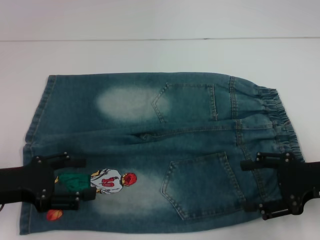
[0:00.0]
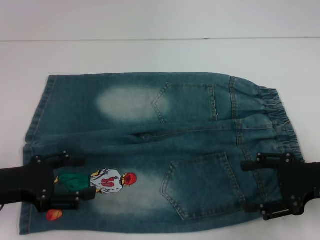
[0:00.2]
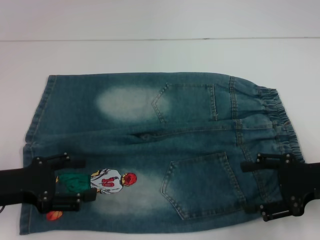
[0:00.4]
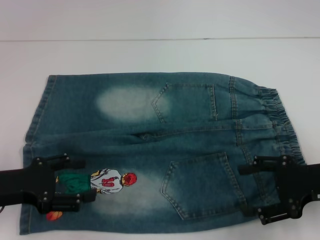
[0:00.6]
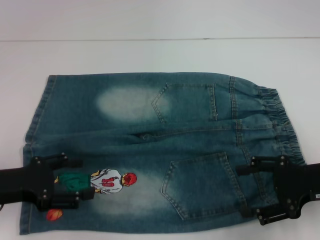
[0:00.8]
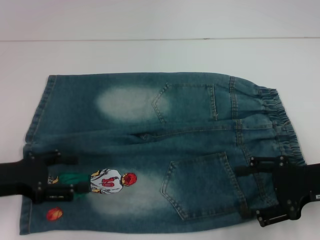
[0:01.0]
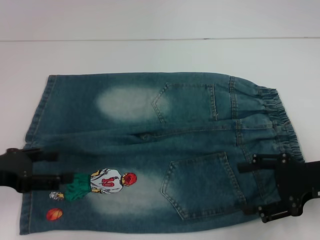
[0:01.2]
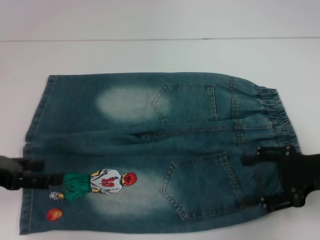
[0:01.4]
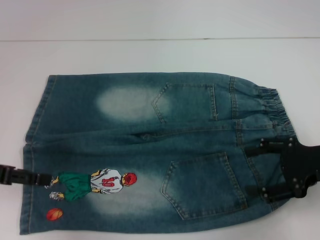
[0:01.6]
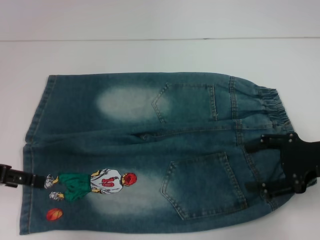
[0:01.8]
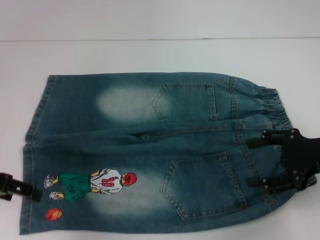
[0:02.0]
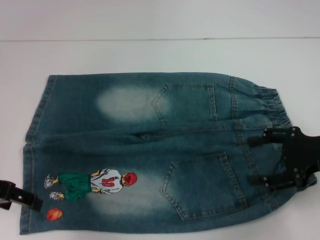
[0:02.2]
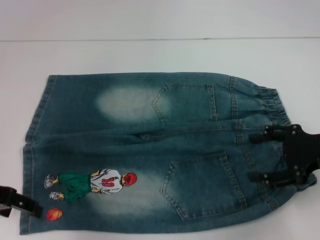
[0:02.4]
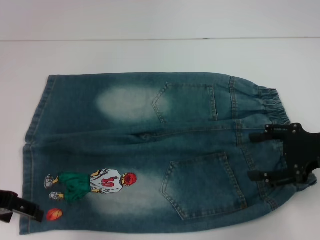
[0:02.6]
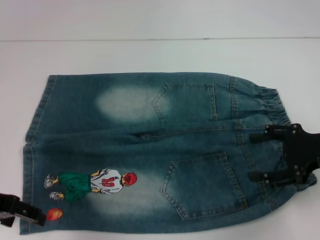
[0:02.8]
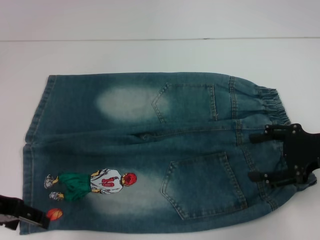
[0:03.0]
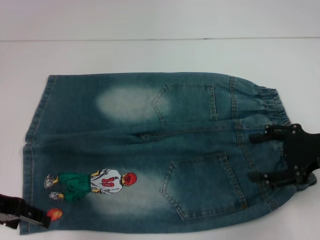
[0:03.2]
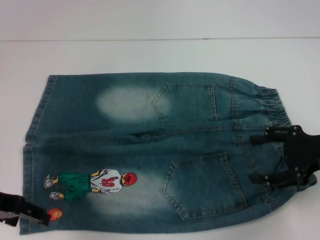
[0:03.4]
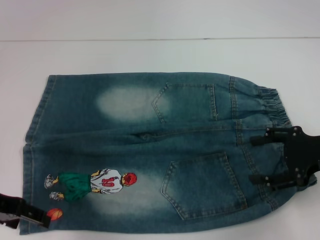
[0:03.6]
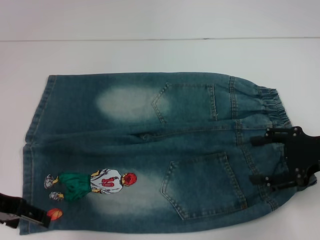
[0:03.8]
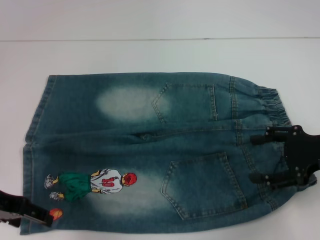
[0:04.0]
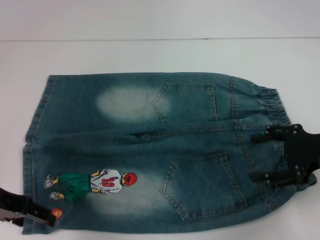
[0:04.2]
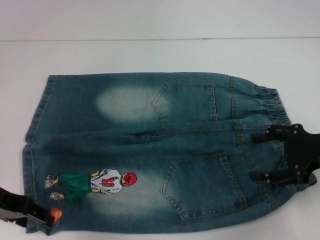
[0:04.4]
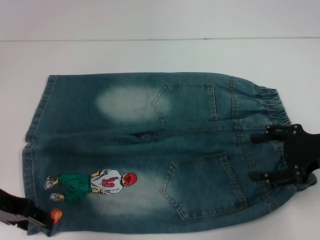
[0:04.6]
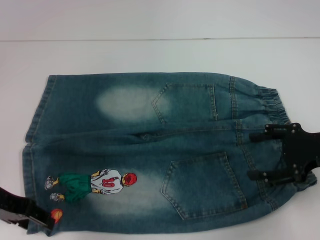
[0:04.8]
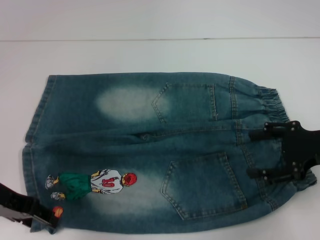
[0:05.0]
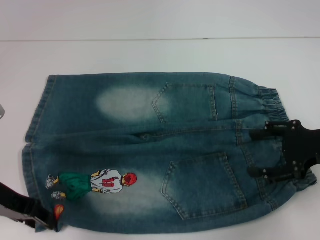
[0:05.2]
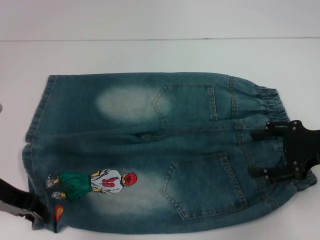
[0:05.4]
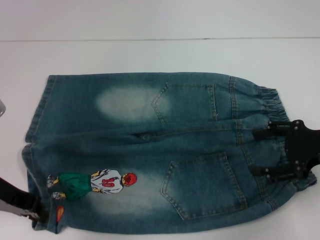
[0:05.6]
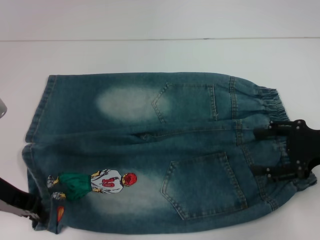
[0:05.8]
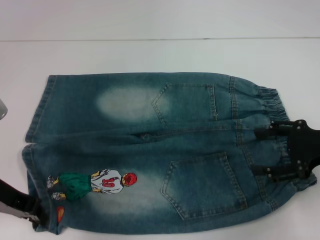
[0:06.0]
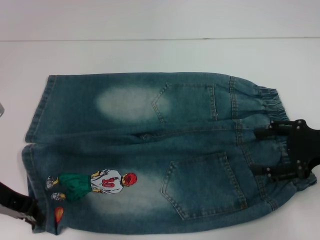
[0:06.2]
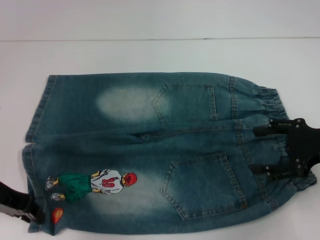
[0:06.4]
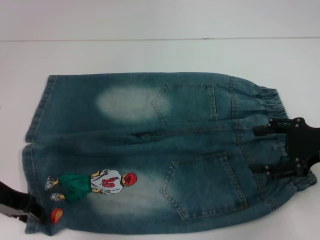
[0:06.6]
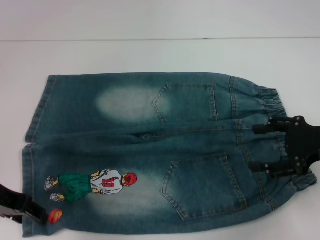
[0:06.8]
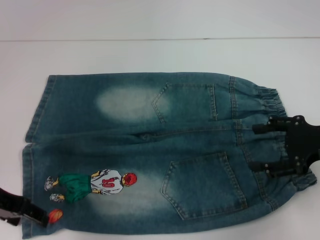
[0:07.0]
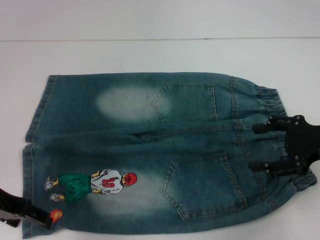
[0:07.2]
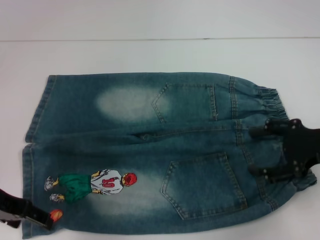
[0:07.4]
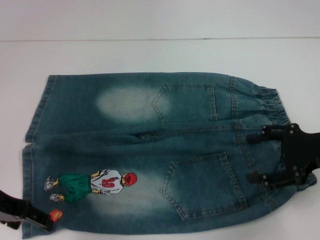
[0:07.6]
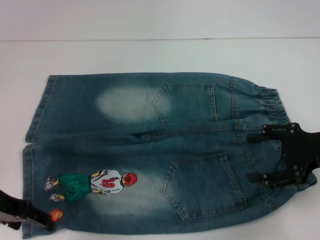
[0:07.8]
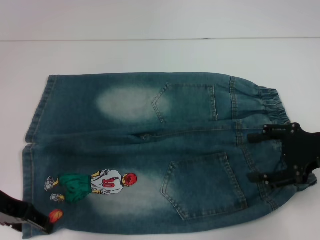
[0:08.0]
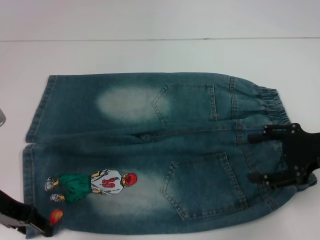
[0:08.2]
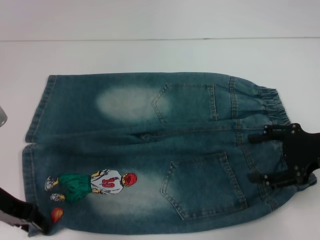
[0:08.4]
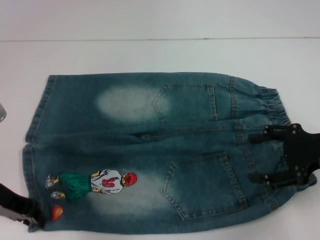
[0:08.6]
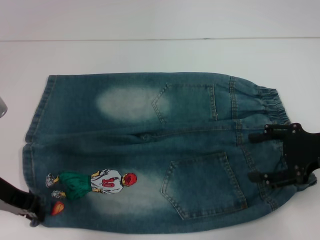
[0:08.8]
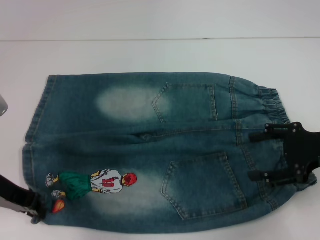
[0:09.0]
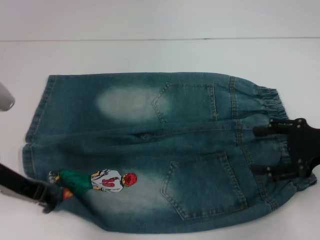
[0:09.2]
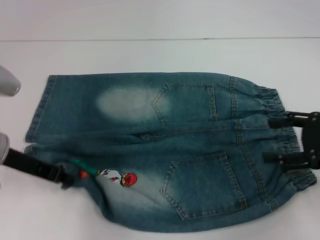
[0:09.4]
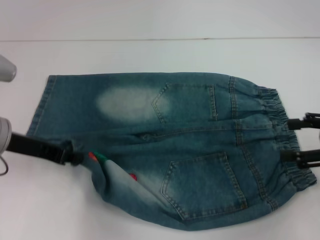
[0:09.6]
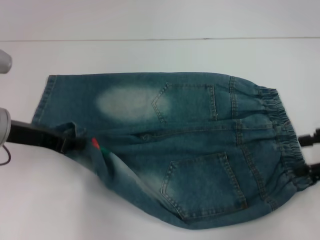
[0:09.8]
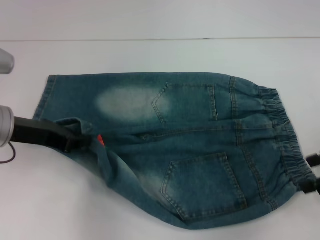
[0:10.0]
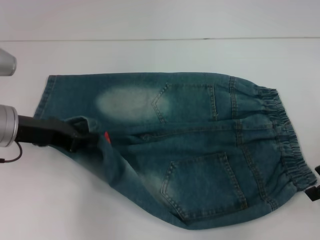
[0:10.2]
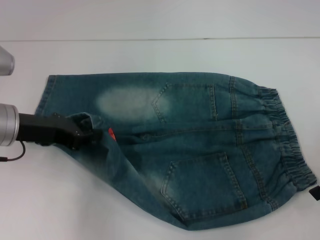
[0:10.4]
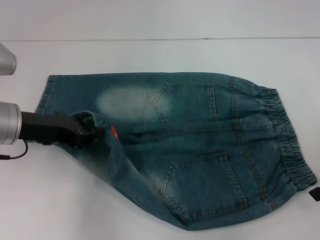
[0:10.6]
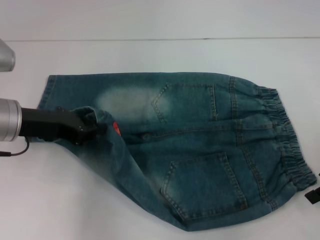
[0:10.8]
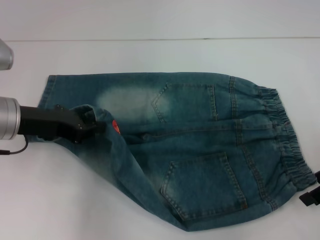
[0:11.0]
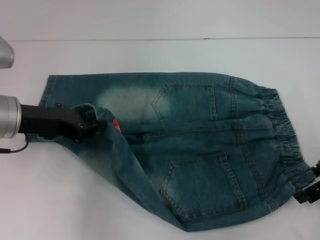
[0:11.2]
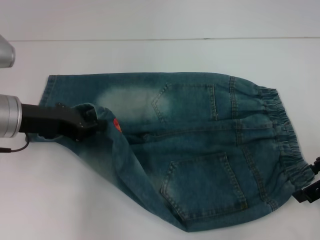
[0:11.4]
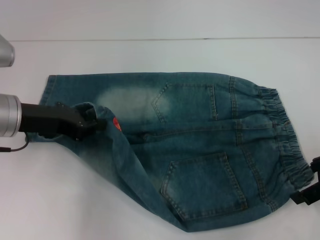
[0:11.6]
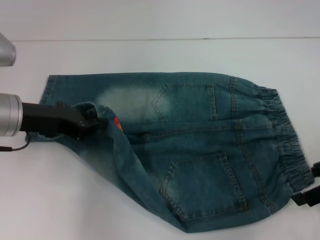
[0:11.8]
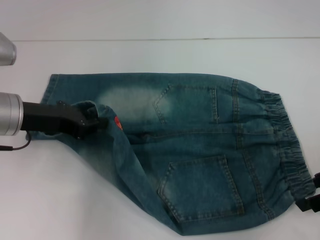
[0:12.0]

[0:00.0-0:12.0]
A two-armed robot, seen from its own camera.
Step, 0:00.0 to 0:08.6: Grab the lower left pant leg with your left hand.
0:00.0 to 0:01.6: The left gripper goes about 5 cm upward.
0:03.0 to 0:04.4: Both grippers stay about where they are.
0:04.4 to 0:06.0: The left gripper closes.
0:06.0 to 0:07.6: The left gripper opens up.
0:07.6 to 0:09.0: The left gripper closes its fingers.
0:09.0 to 0:10.4: The right gripper ends up roughly 5 cm from where it was.
0:10.4 to 0:12.0: There are only small adjustments of the grippers.

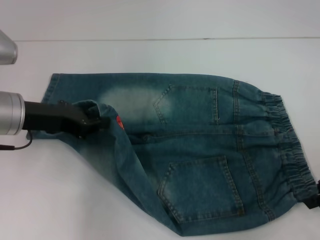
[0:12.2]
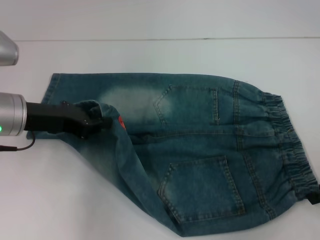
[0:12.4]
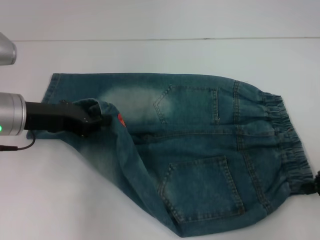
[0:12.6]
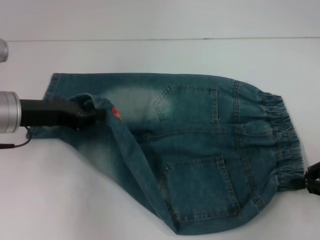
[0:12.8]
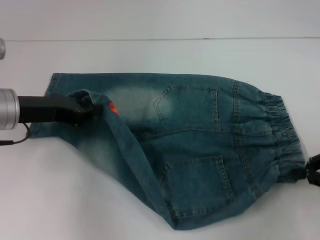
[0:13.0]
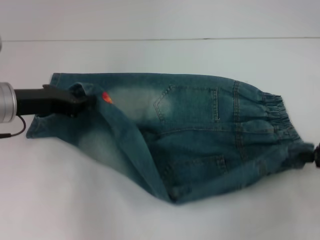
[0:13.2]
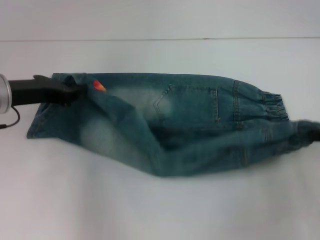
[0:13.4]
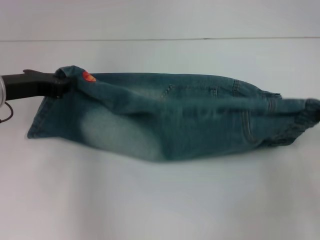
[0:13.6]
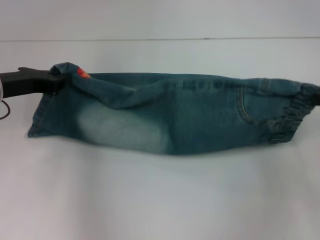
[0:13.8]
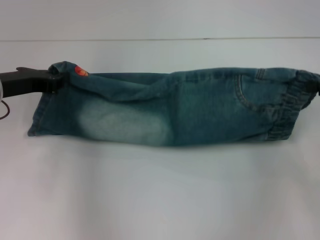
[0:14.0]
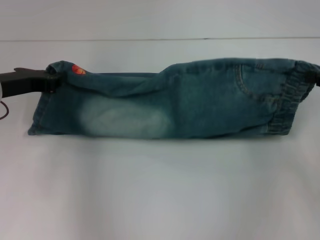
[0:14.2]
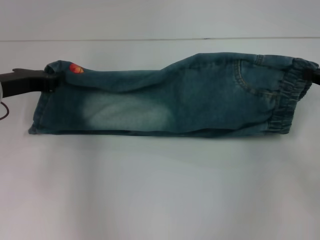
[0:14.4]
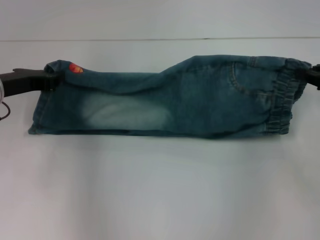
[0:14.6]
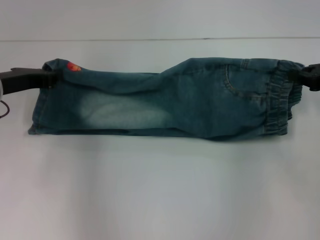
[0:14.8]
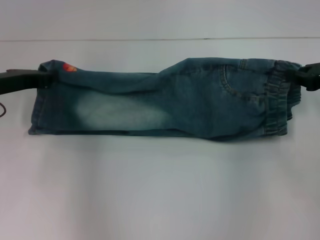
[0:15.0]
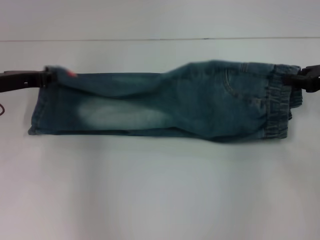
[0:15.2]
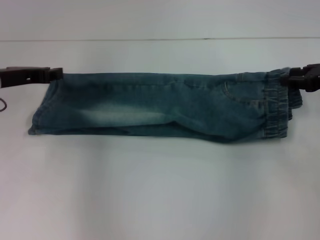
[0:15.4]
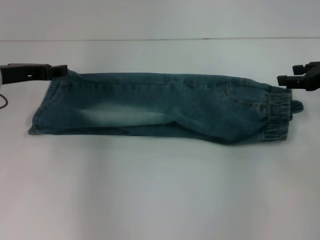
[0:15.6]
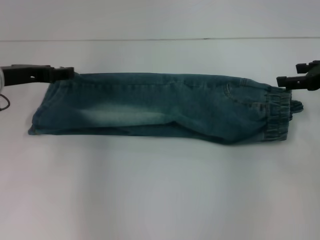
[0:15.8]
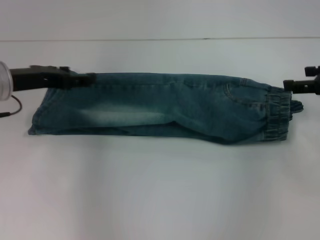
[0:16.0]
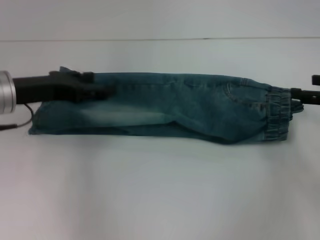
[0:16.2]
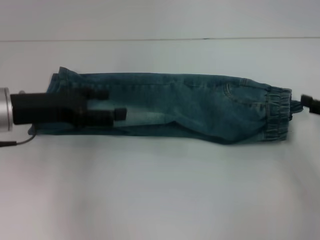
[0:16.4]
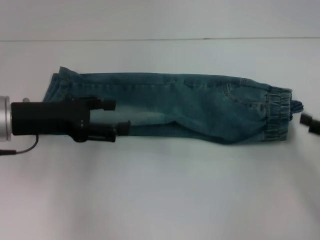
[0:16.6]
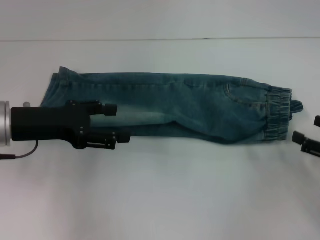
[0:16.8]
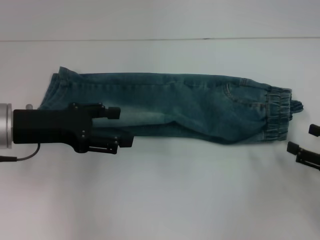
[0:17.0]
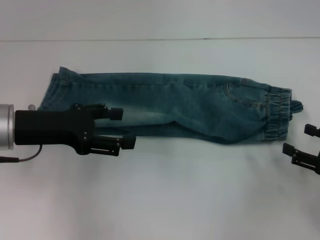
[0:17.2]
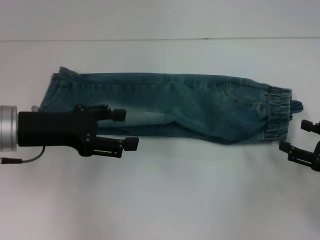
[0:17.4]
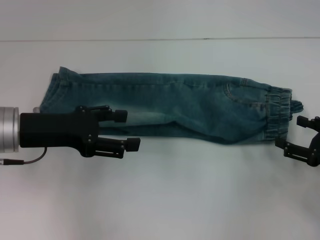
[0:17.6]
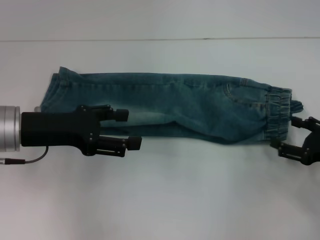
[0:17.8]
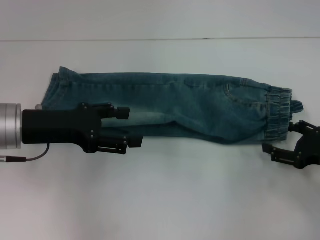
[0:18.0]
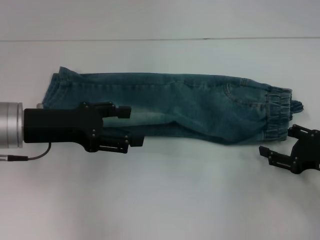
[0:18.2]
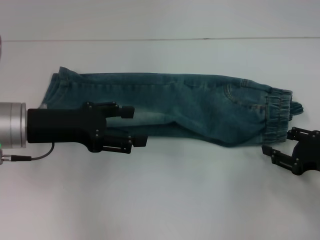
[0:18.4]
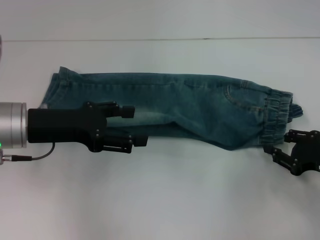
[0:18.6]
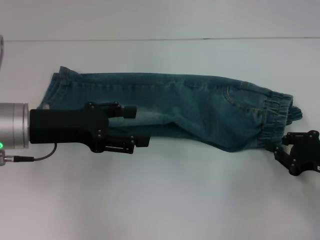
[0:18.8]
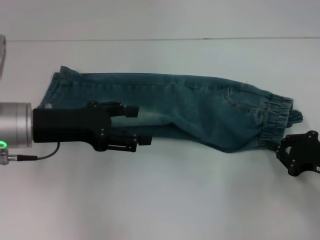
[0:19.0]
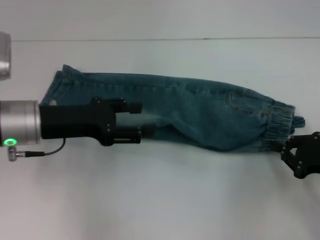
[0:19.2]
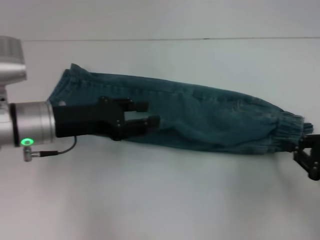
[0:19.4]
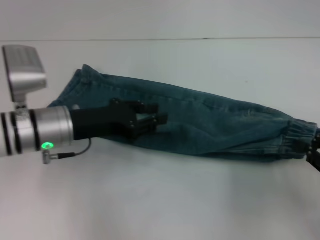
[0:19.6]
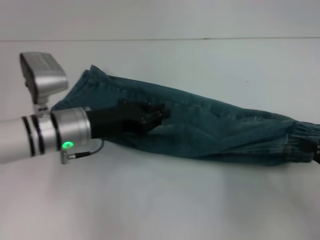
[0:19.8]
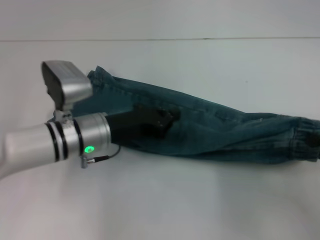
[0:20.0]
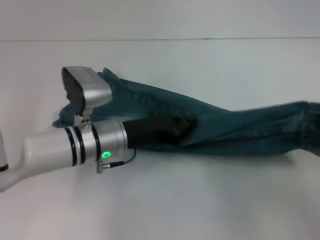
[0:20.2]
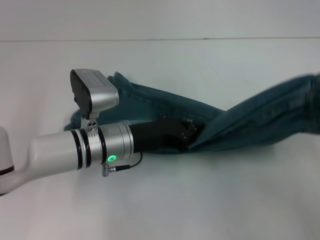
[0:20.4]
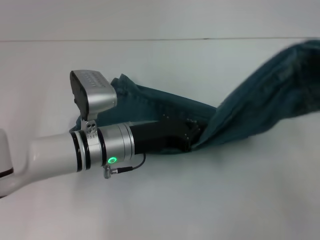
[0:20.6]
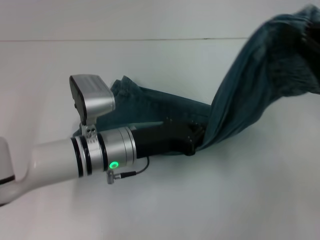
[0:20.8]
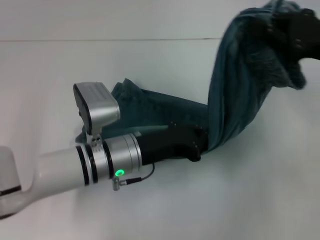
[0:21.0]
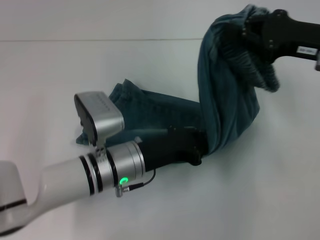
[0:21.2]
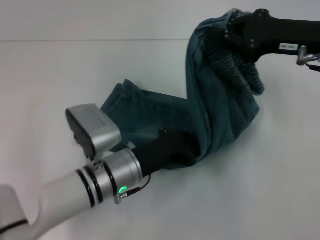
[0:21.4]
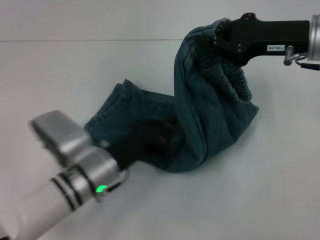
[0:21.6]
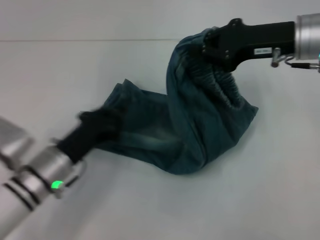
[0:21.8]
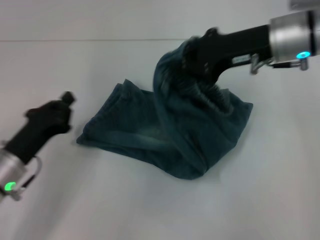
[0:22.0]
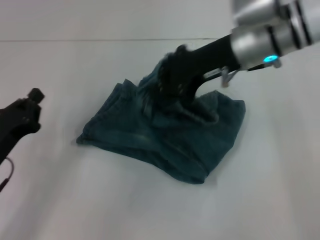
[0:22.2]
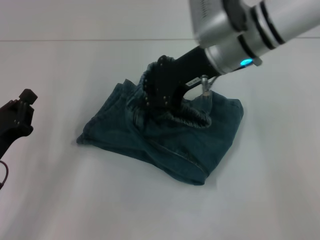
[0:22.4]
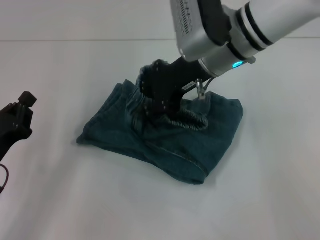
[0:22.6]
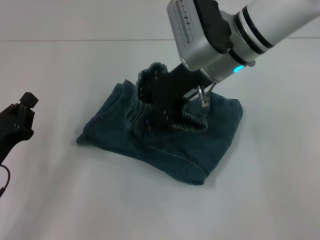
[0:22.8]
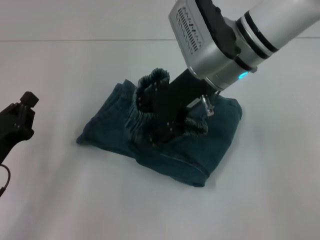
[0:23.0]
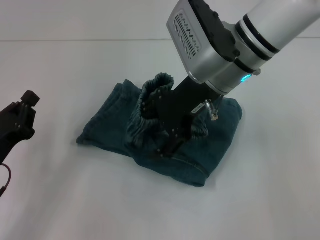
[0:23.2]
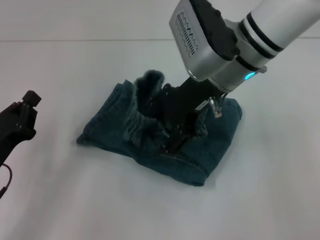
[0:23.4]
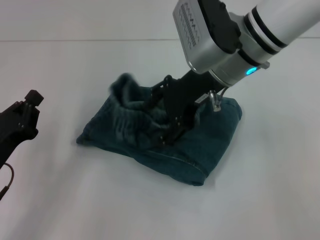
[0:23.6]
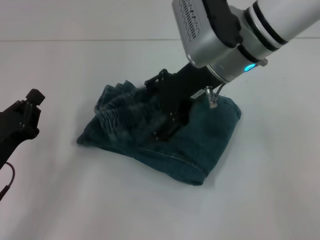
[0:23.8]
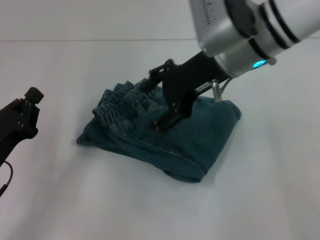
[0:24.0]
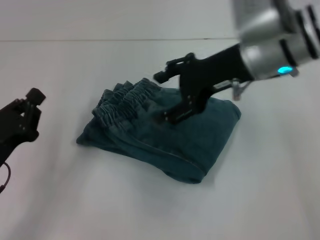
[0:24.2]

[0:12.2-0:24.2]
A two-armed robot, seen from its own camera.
Step, 0:12.4 to 0:15.4: Fold upward with your left hand.
Step, 0:15.6 to 0:19.0: Grab the waistband with your right hand.
Step, 0:19.2 to 0:21.4: Press the middle of the pants with your left hand.
Step, 0:21.6 to 0:23.8: Fold to the left with your right hand.
0:12.2 to 0:13.8: The right gripper closes its fingers.
0:13.8 to 0:15.2: The right gripper moves forward, approximately 5 cm.
0:15.2 to 0:16.6: The right gripper shifts approximately 15 cm backward and downward, and opens; the left gripper shifts approximately 5 cm backward, and opens up.
0:16.6 to 0:18.2: The right gripper changes place by about 5 cm.
0:18.2 to 0:19.8: The left gripper shifts about 10 cm to the right and downward, and closes up; the right gripper moves upward, some 5 cm, and closes.
0:19.8 to 0:21.2: The left gripper goes roughly 10 cm to the right, and closes; the right gripper moves forward, to the left and upward, about 20 cm.
0:21.2 to 0:22.6: The grippers both shift to the left by about 20 cm.
0:22.6 to 0:24.2: The right gripper is displaced to the right by about 5 cm, and opens up.
